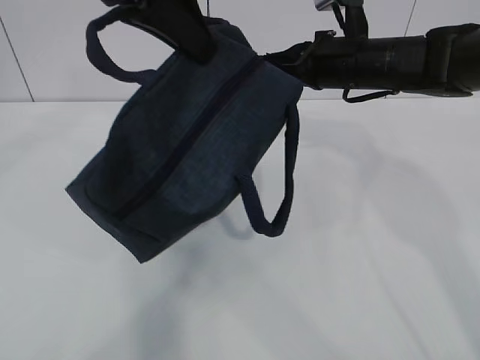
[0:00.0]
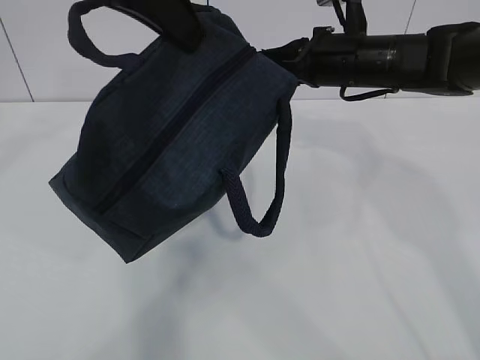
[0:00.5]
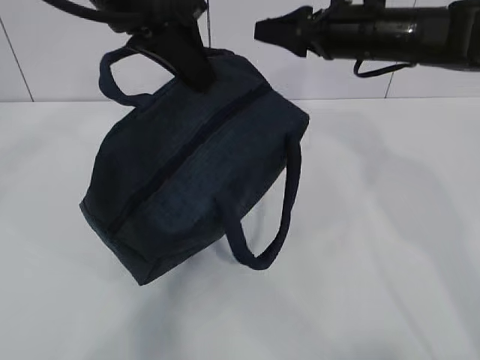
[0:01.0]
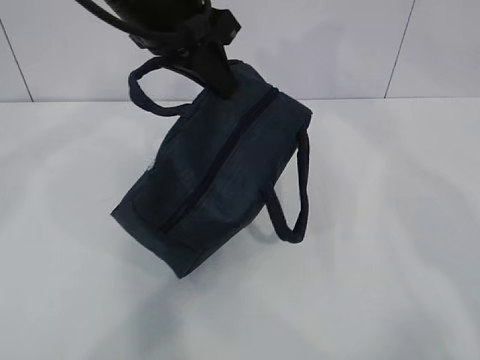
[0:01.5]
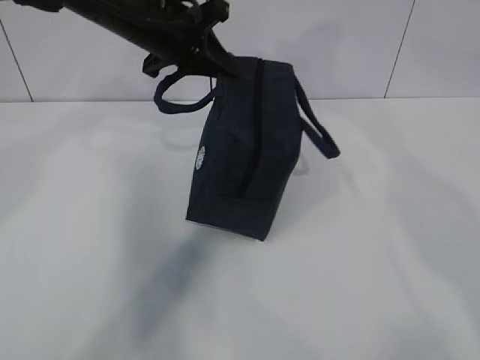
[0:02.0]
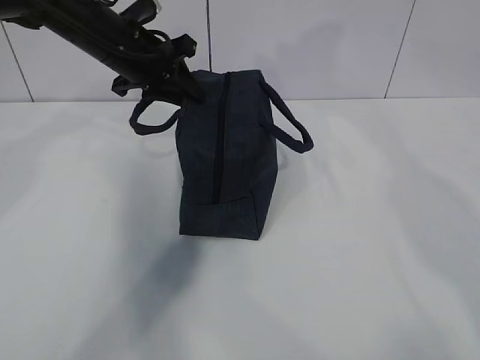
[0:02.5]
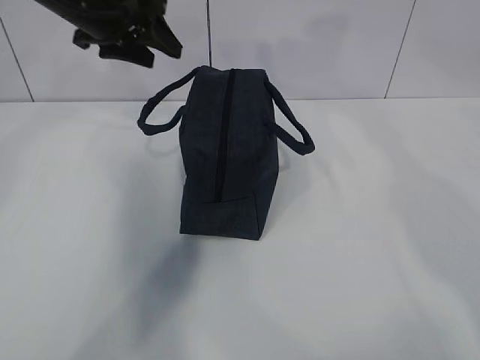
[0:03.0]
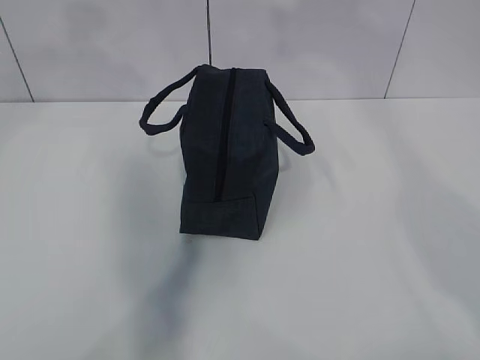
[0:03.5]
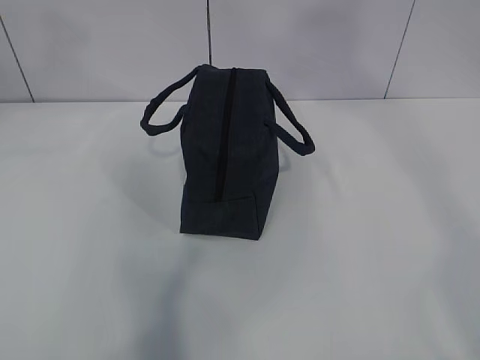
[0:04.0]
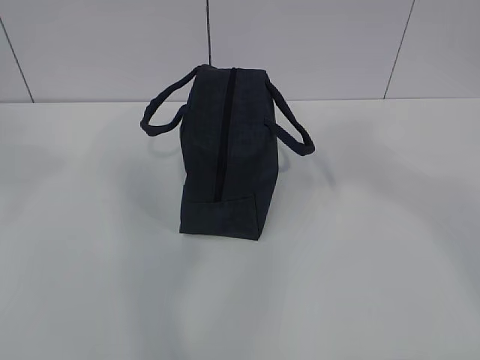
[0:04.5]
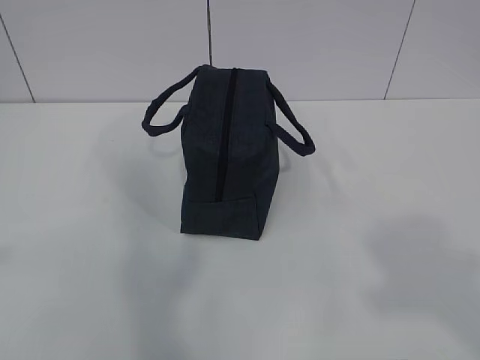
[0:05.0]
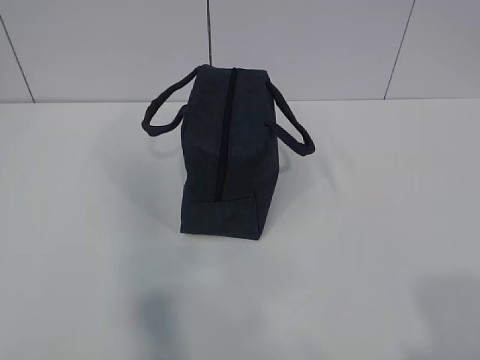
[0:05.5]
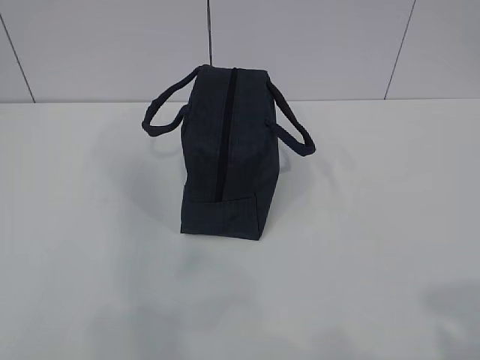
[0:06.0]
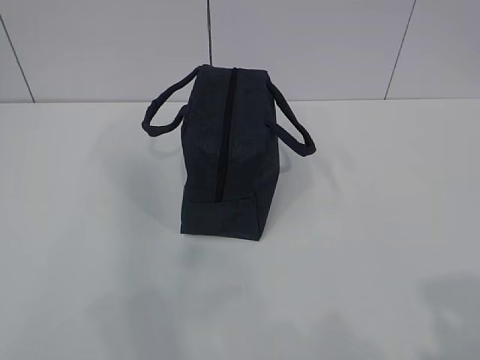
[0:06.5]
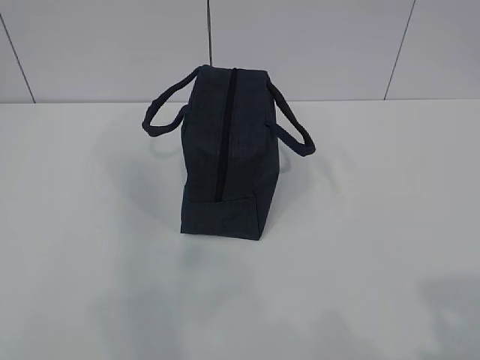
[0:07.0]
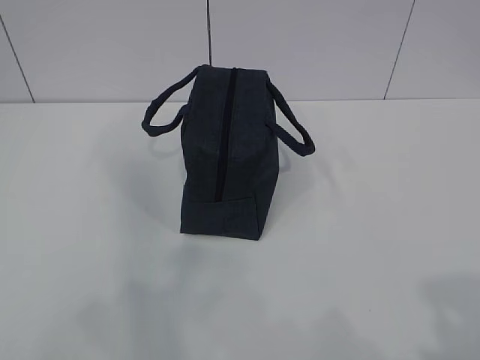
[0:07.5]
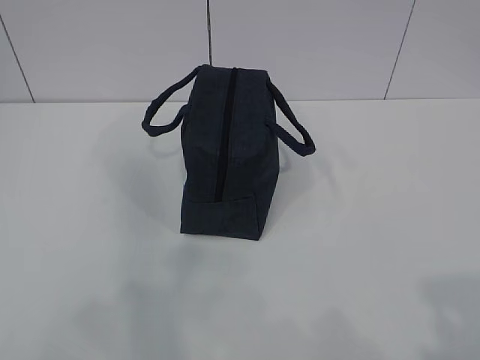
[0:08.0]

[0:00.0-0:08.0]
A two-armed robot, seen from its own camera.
0.0 to 2.0 s: The right gripper is displaced upward by about 15 cm, and opens up. Meanwhile the left gripper moves forward and downward, roughly 15 cm.
2.0 to 4.0 s: The left gripper is displaced upward, backward and to the left by some 30 cm, and opens its fingers. The right gripper goes approximately 35 cm backward and upward.
4.0 to 6.0 s: The left gripper moves backward, downward and to the left, roughly 35 cm. The right gripper heads downward and backward, covering approximately 40 cm.

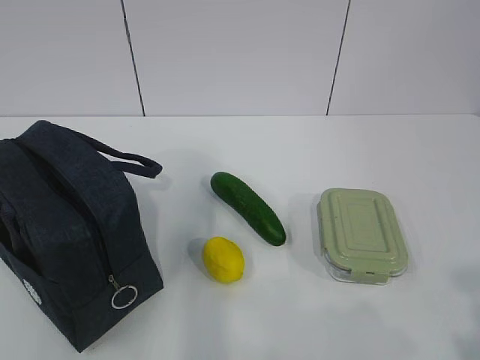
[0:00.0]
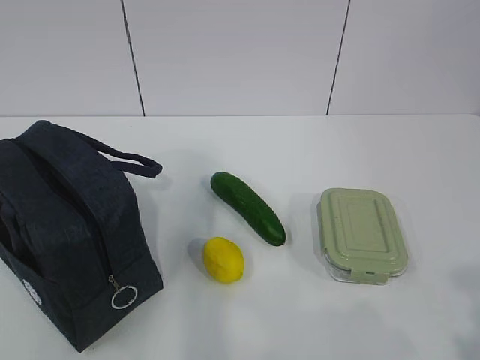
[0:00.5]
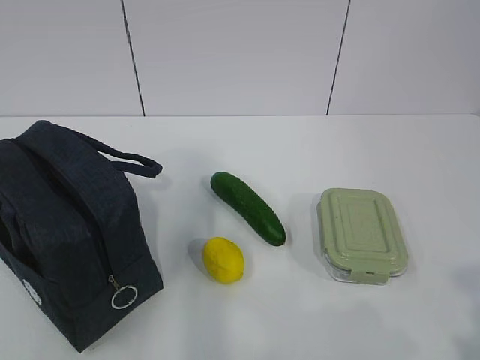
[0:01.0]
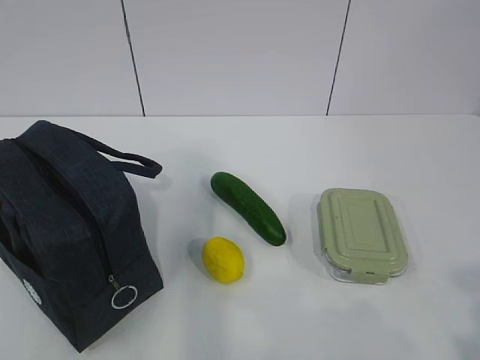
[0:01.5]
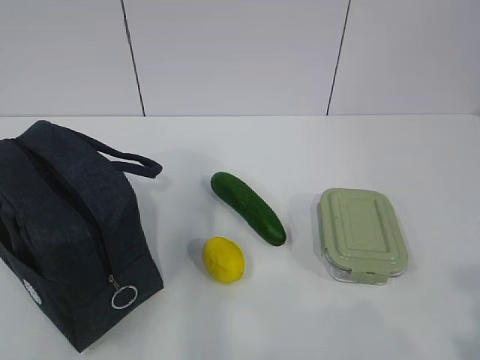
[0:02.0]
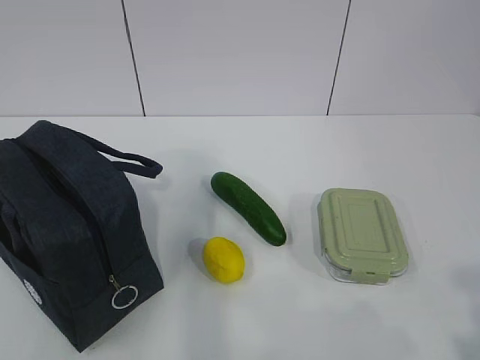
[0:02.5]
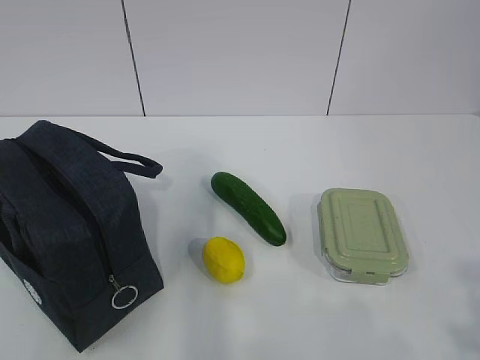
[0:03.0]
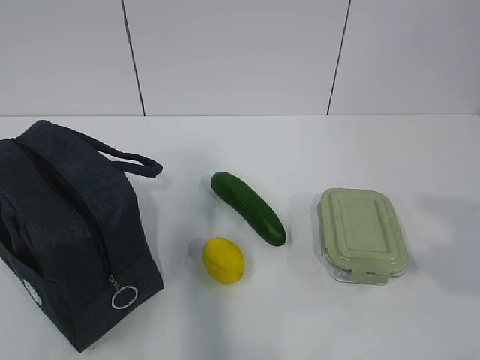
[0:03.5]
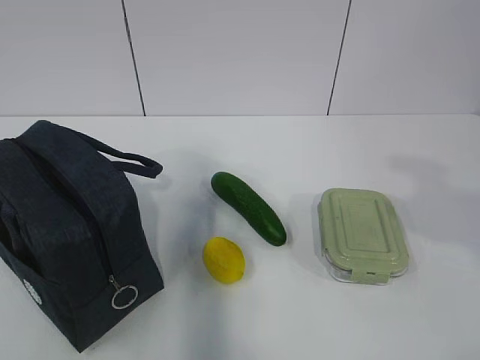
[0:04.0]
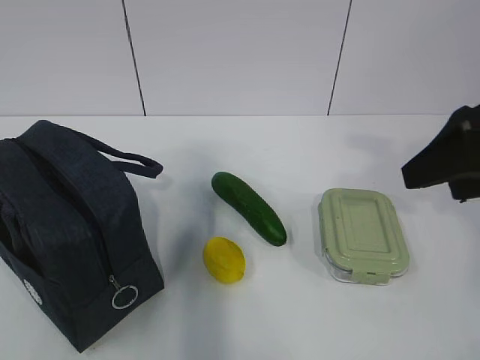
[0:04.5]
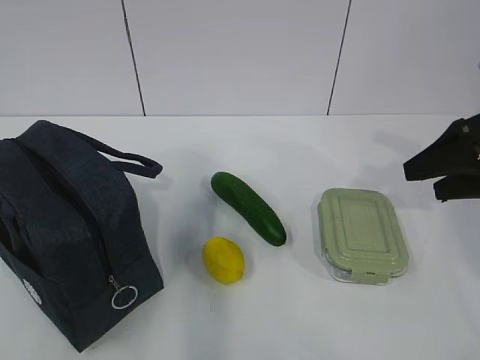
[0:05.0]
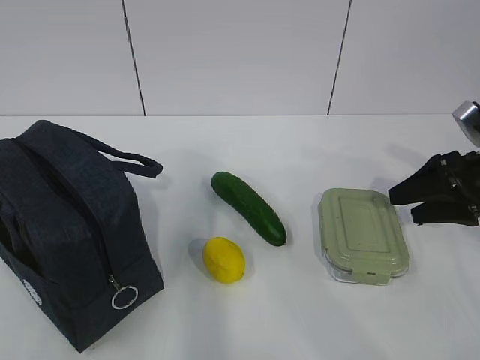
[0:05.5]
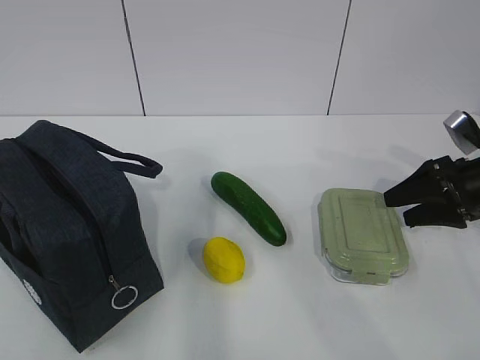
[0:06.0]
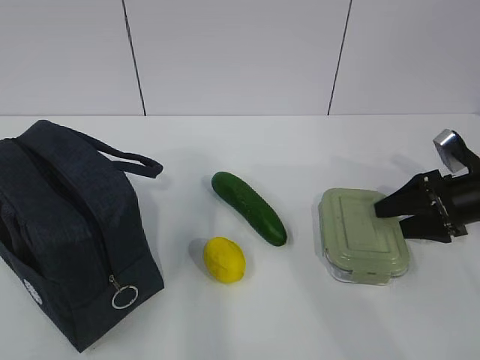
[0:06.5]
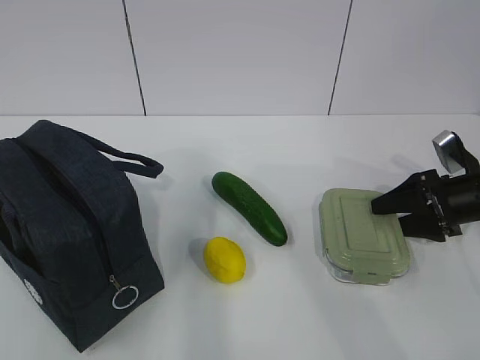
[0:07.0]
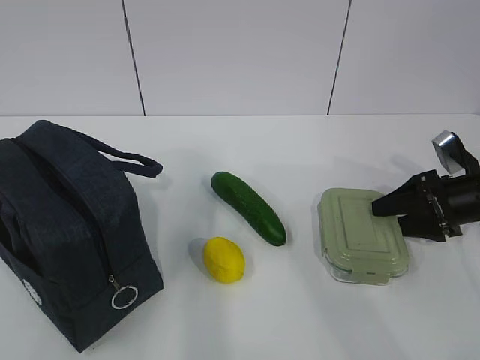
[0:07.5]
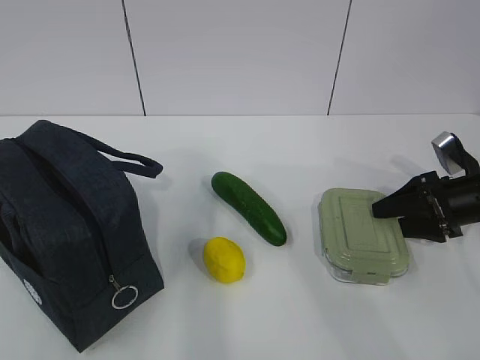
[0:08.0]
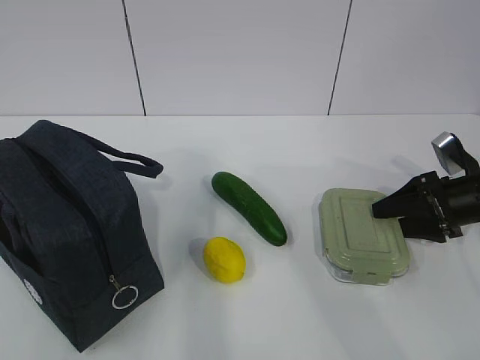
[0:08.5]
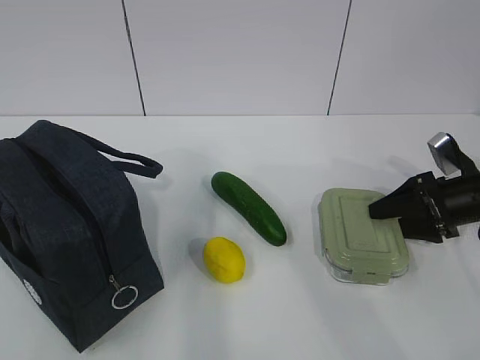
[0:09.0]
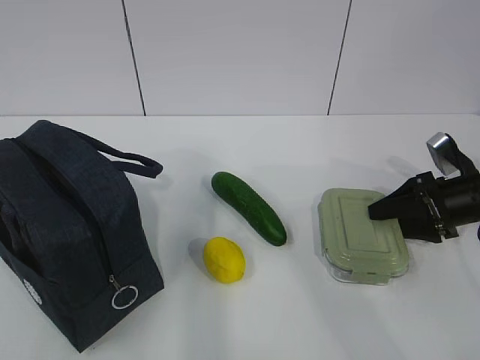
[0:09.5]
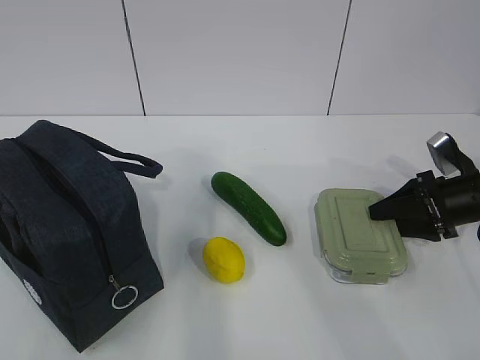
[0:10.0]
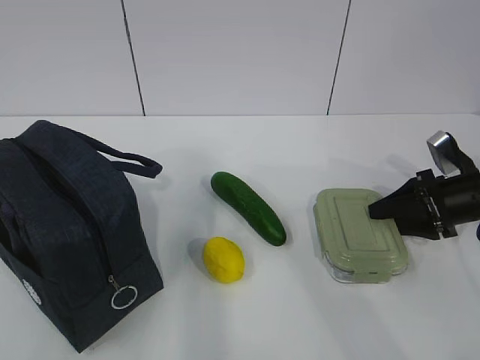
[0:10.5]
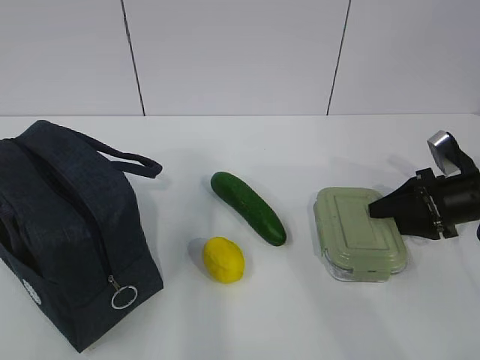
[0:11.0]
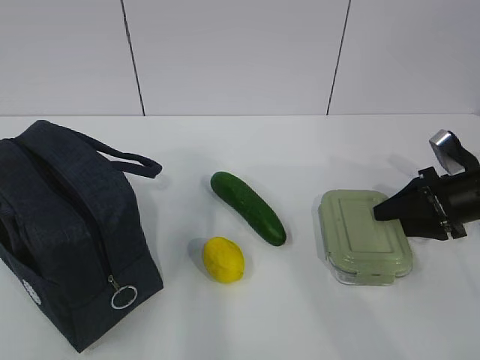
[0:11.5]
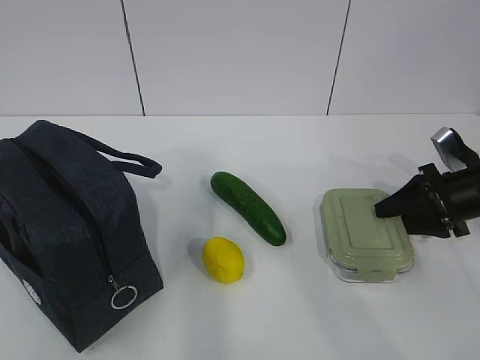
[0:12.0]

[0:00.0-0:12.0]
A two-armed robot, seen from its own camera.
Step, 0.0 to 10.0 s: Grab the lunch box with your right hand.
2.0 to 4.0 s: The right gripper moves forward, about 15 cm, and opens.
4.0 to 6.0 s: The right gripper shifts about 30 cm forward and downward.
6.0 to 8.0 s: There are only small adjustments of the grippers.
8.0 to 10.0 s: Both grippers stay about where they are.
10.0 to 12.0 s: The grippers stay close to where they were, moving slightly.

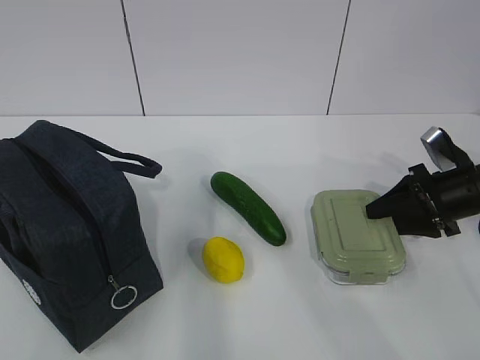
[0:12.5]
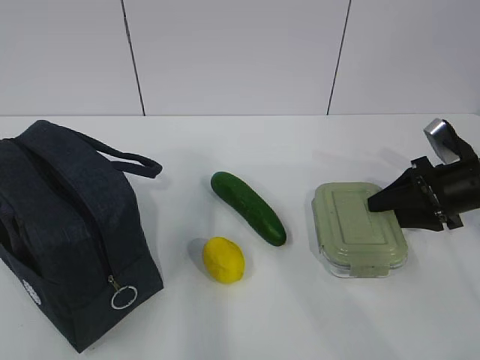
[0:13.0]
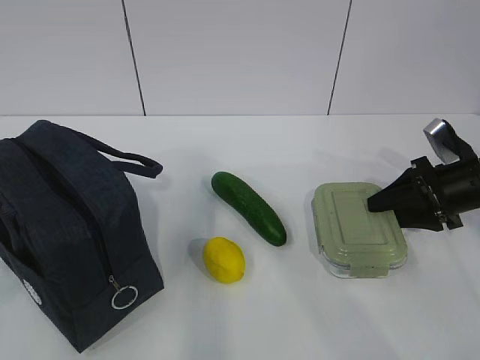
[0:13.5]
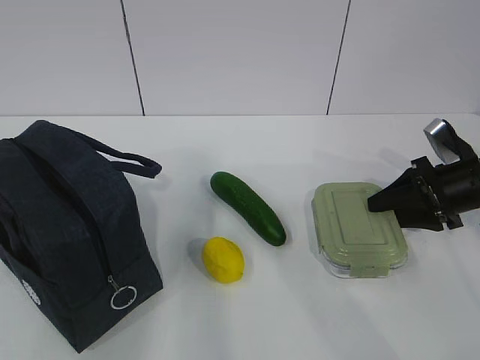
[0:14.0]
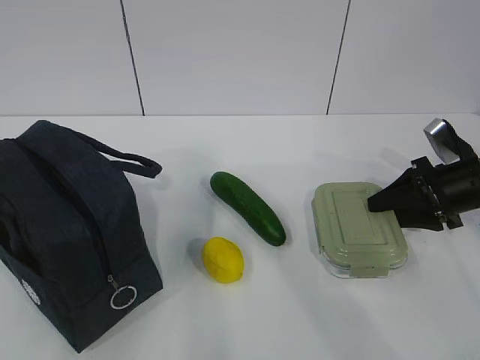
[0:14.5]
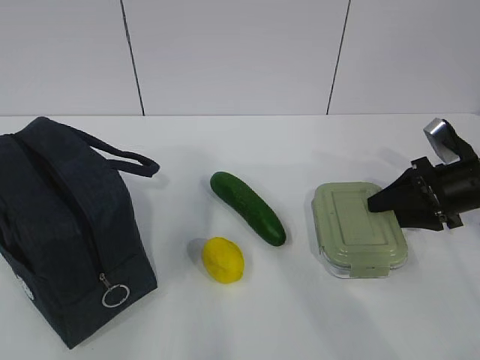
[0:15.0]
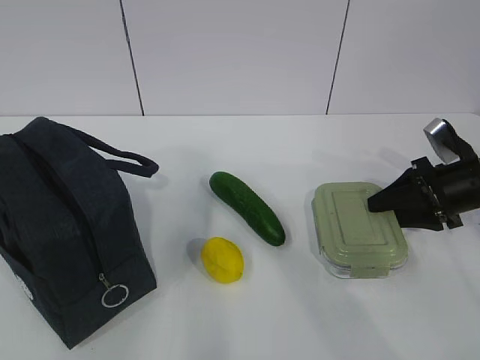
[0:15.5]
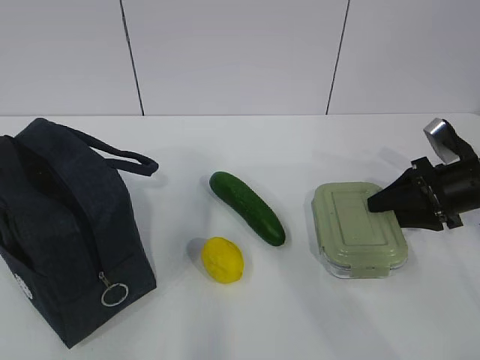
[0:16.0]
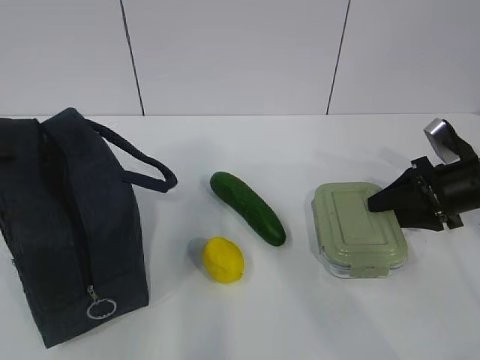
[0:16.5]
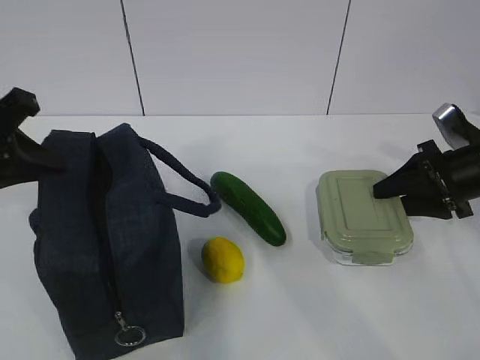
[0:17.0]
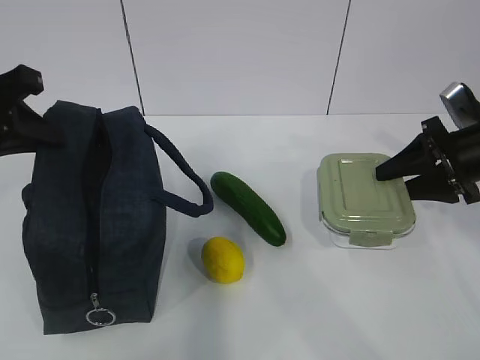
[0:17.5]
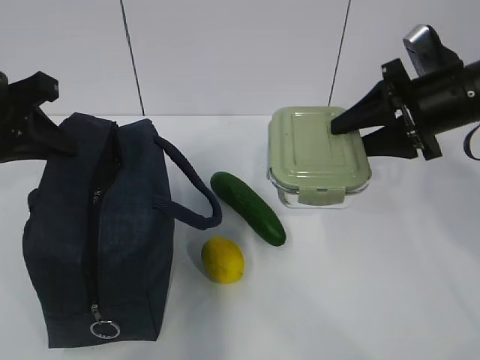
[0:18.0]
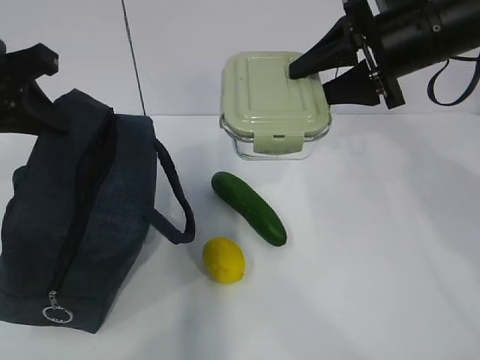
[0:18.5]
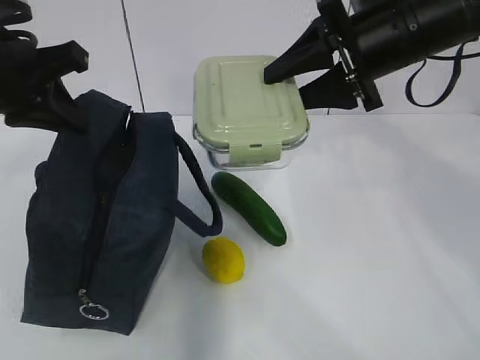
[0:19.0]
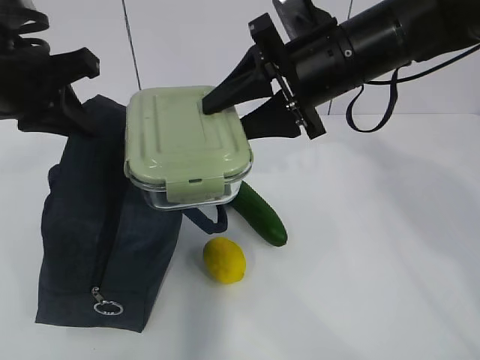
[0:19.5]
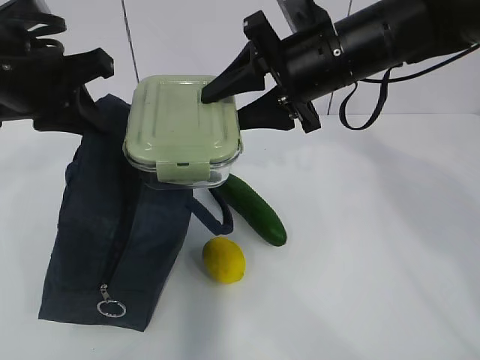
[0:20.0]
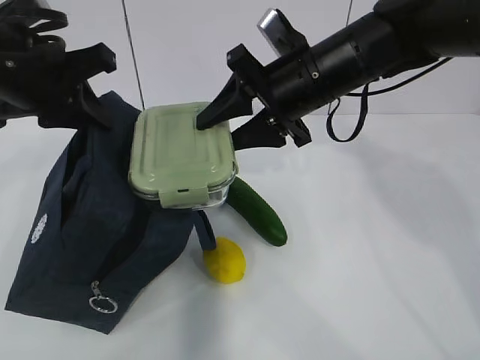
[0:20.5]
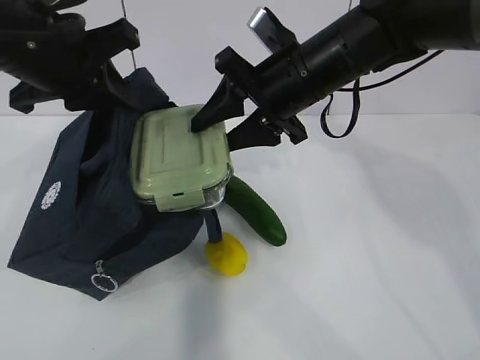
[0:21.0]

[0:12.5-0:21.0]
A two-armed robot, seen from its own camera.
Step, 12.5 to 16.5 s: Grab the lunch bag with your left hand.
Step, 17.0 to 19.5 s: Place it into the bag with your right hand.
14.5 to 16.5 s: The left gripper closes its fingers.
16.5 to 19.0 s: The left gripper is displaced to the right and forward by approximately 10 cm. The right gripper shifts roughly 25 cm upward and to the left.
19.0 to 21.0 s: The right gripper heads to the left, covering roughly 10 cm.
